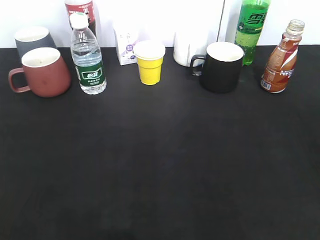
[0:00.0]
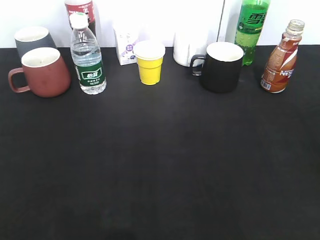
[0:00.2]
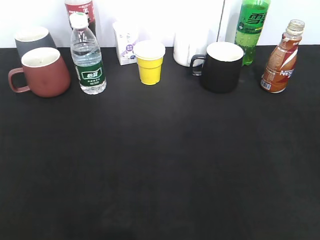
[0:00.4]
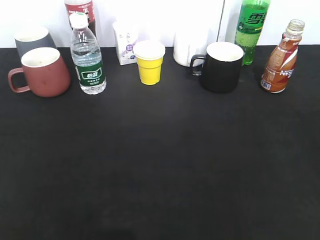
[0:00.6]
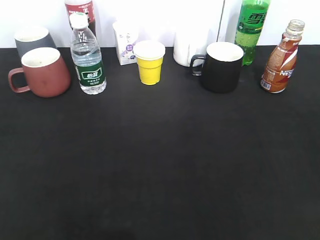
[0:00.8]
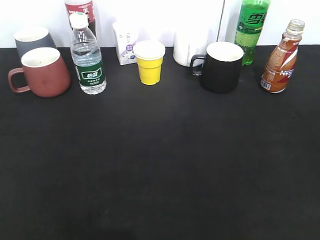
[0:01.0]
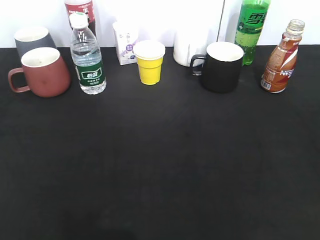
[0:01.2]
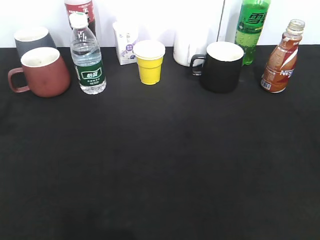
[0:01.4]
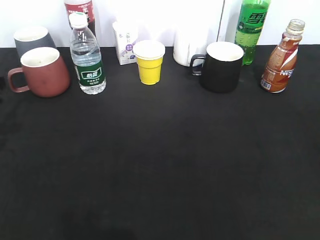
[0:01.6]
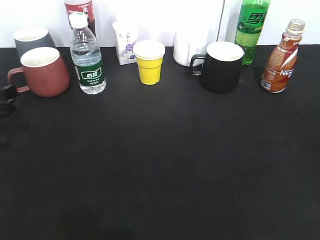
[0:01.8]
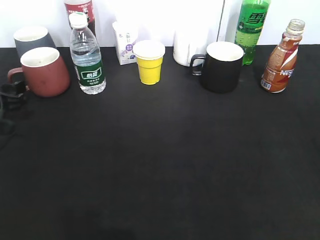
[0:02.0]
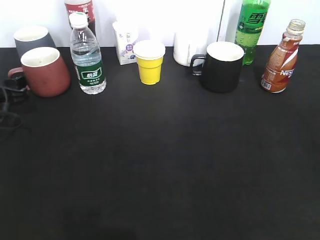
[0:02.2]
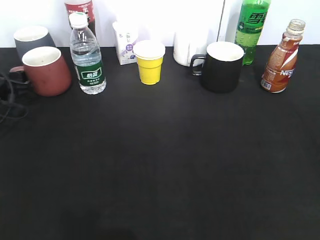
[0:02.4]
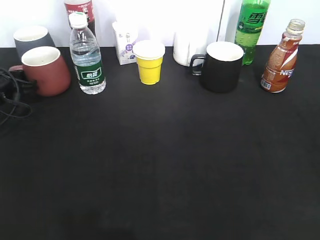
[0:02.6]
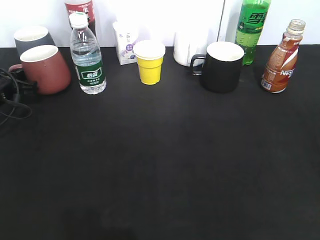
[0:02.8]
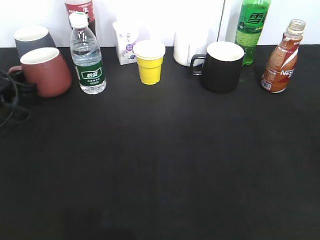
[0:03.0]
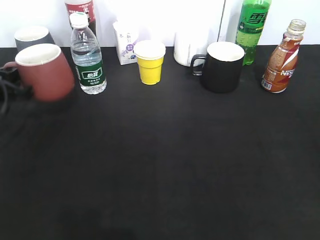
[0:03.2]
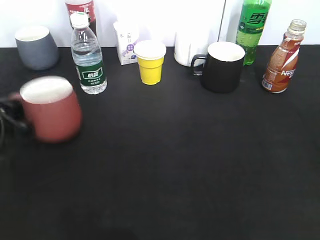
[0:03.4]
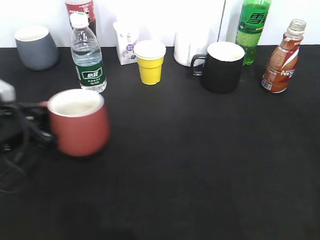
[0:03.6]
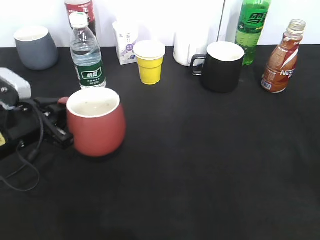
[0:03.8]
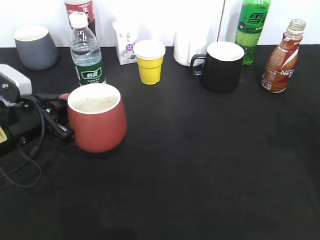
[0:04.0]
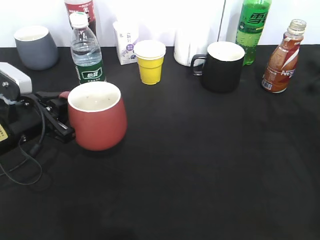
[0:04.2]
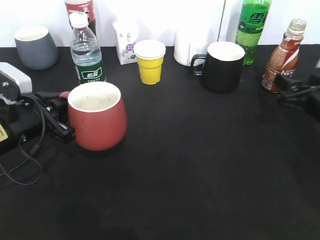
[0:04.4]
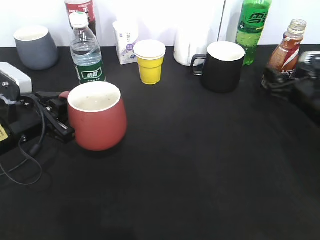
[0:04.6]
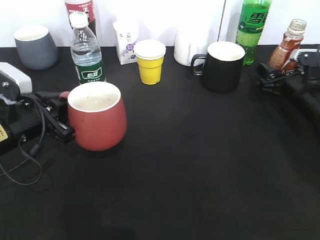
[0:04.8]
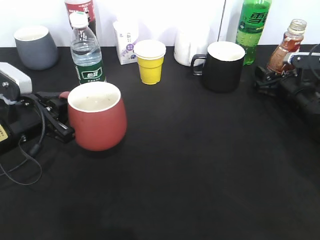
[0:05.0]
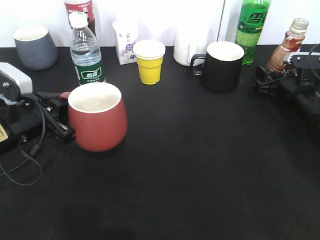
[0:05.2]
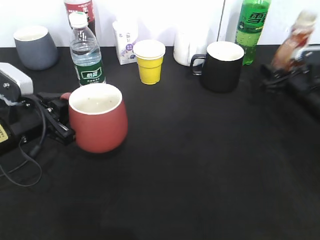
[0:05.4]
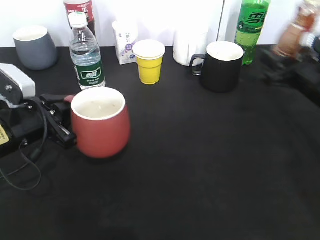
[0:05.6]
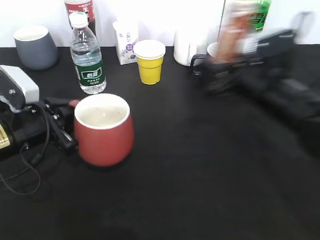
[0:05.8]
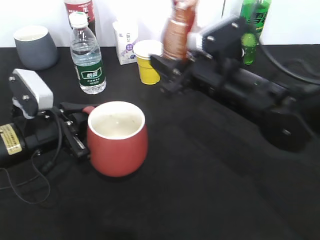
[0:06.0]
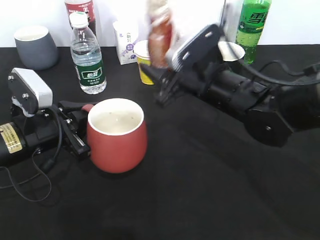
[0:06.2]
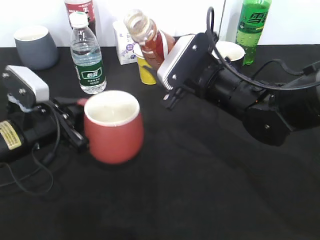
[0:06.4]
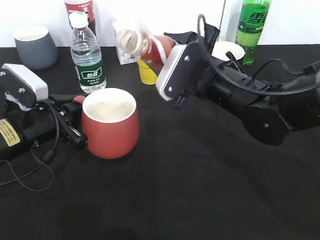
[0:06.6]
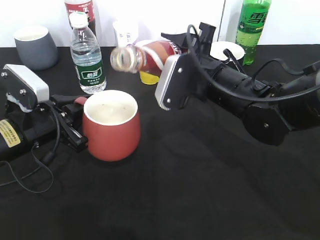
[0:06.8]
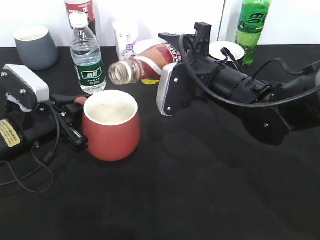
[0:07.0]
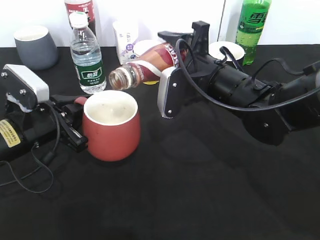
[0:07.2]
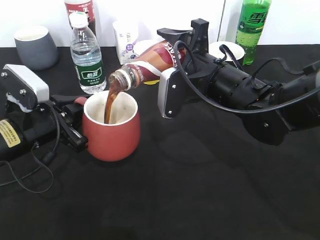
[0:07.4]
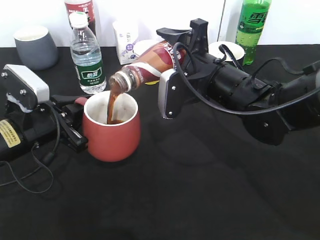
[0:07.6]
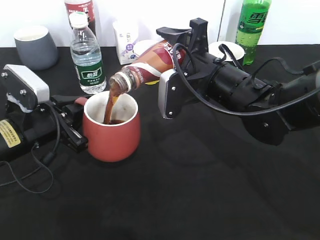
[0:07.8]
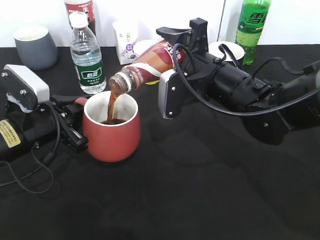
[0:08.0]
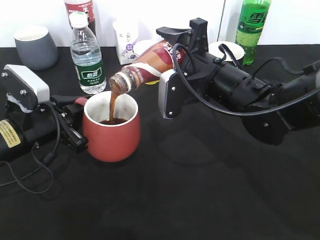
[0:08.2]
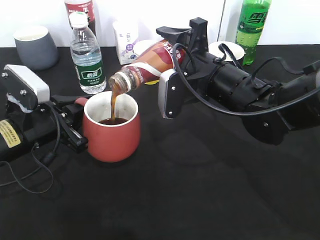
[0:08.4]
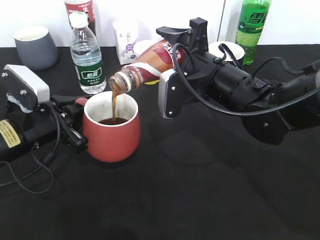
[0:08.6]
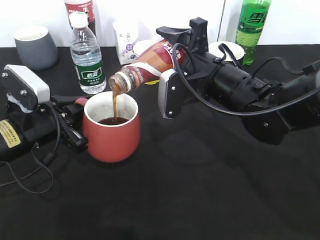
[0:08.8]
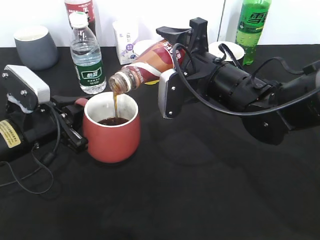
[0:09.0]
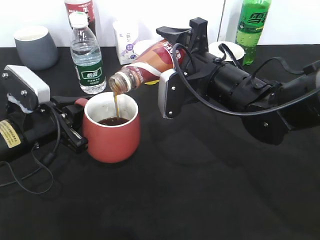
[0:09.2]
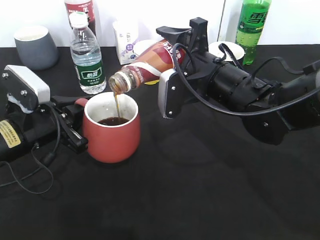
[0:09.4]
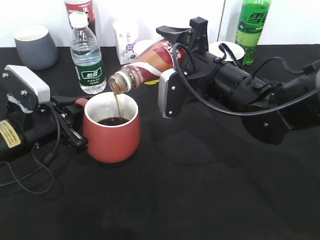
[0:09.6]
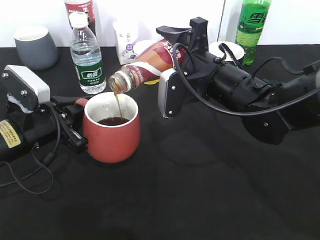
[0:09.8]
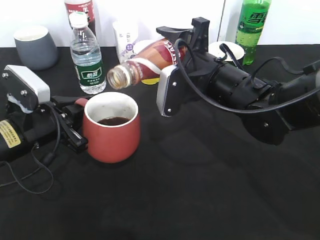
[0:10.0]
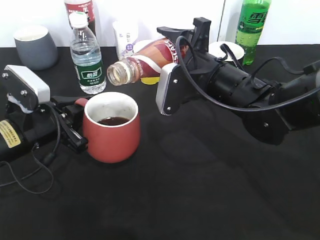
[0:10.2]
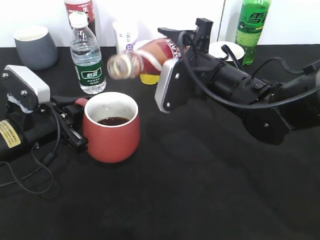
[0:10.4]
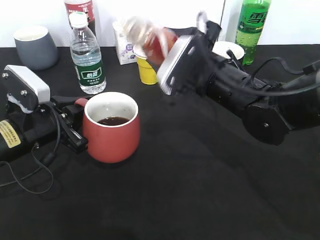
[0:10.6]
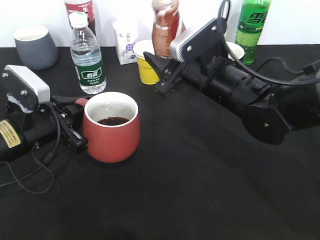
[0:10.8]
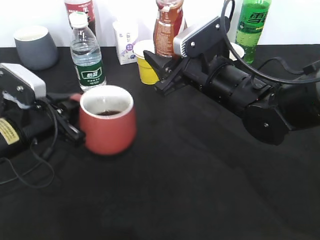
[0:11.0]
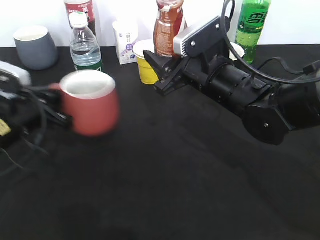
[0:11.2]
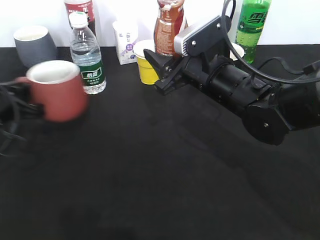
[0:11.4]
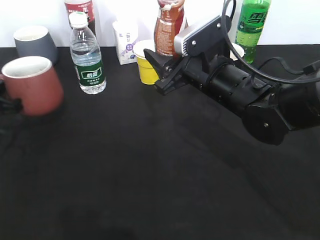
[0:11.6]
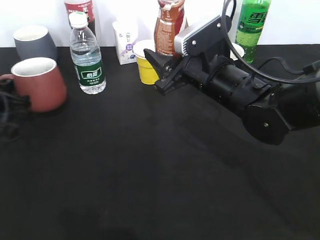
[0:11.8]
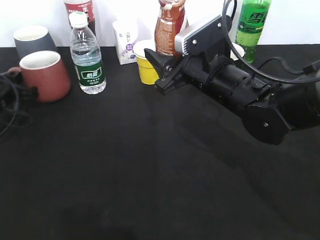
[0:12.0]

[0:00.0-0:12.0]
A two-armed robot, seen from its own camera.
Step, 0:02.8 to 0:03.8: Lift the red cup with left gripper.
Step, 0:04.0 to 0:05.2: Grasp the bottle with coffee with right gripper.
Step, 0:05.4 to 0:10.4: Pour the coffee from bottle to cup with right gripper.
0:00.0 to 0:01.6: The left gripper heads forward and downward, covering roughly 30 cm.
0:01.6 to 0:03.0: The left gripper moves forward and downward, some 10 cm, and closes its fingers.
0:03.0 to 0:04.4: The right gripper goes about 35 cm forward and downward, and opens its fingers. Meanwhile the left gripper is displaced backward and to the right by some 15 cm.
0:04.4 to 0:06.0: The right gripper is displaced to the left by roughly 20 cm, and closes up.
0:07.6 to 0:09.0: Both grippers stay put.
0:09.0 to 0:10.4: The grippers make only small movements.
0:10.4 to 0:12.0: The left gripper is displaced to the left and forward by about 15 cm.

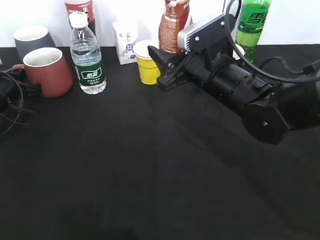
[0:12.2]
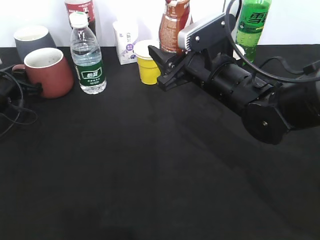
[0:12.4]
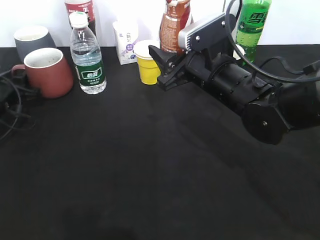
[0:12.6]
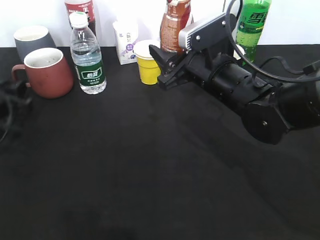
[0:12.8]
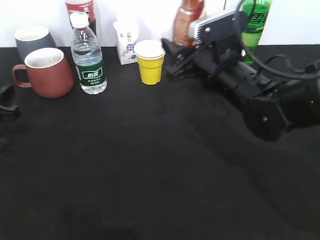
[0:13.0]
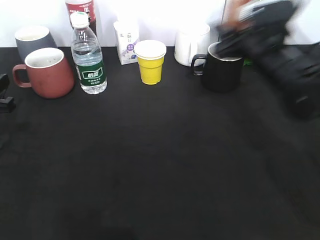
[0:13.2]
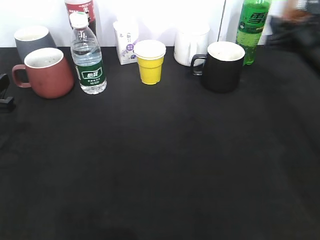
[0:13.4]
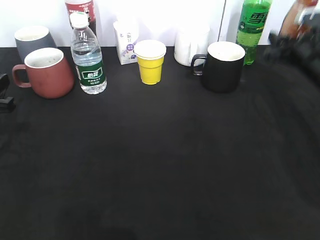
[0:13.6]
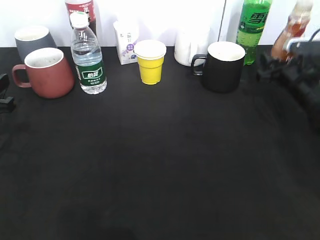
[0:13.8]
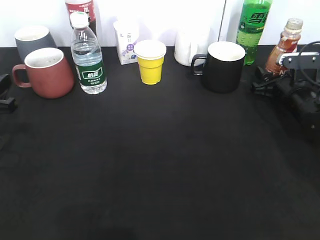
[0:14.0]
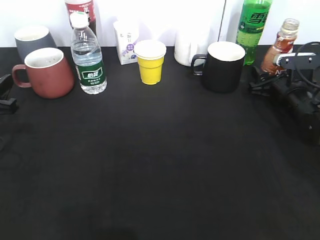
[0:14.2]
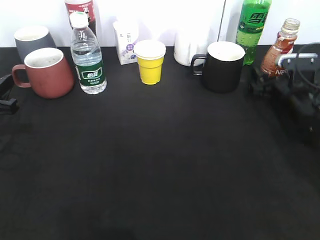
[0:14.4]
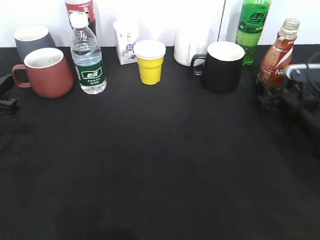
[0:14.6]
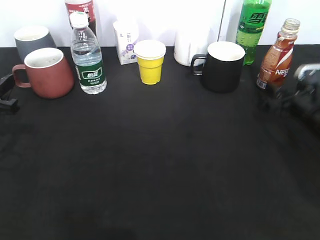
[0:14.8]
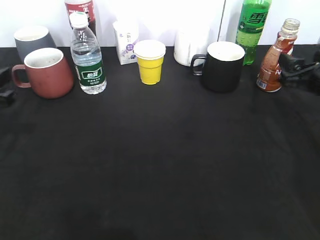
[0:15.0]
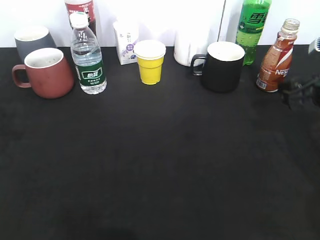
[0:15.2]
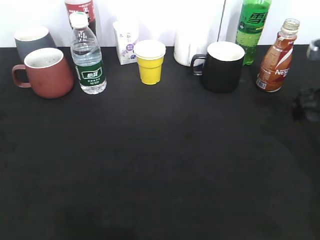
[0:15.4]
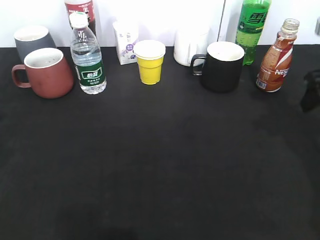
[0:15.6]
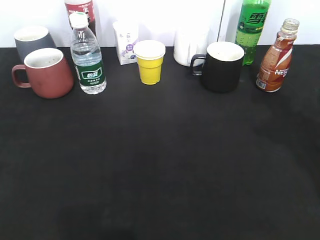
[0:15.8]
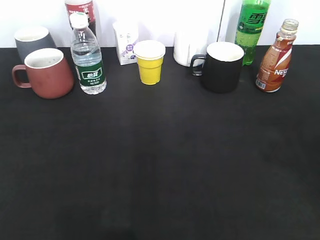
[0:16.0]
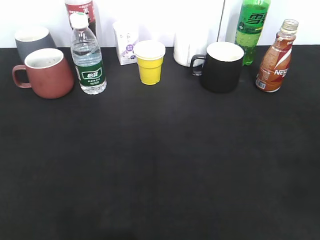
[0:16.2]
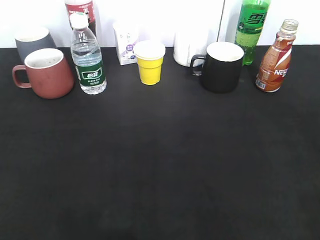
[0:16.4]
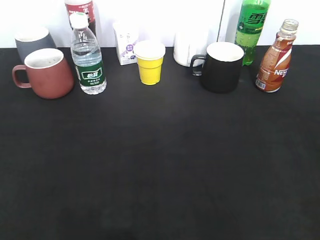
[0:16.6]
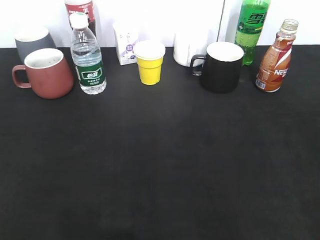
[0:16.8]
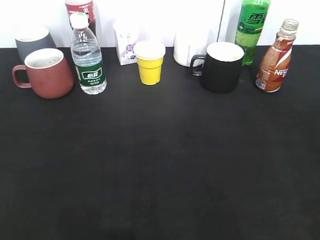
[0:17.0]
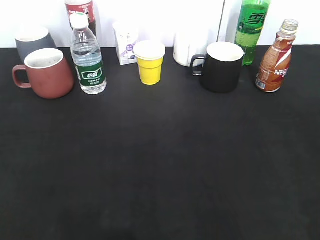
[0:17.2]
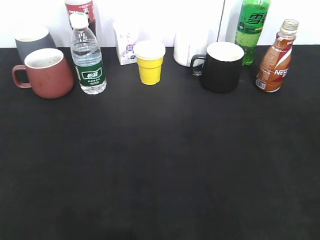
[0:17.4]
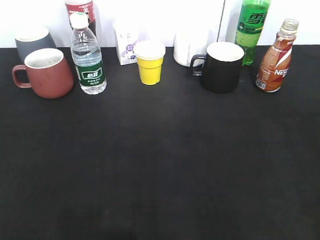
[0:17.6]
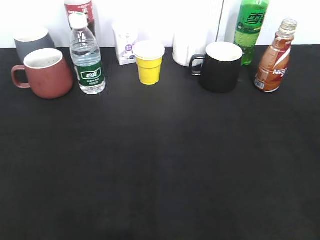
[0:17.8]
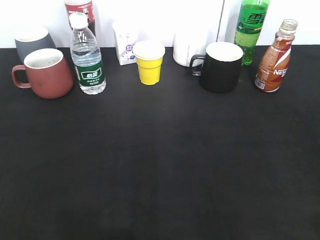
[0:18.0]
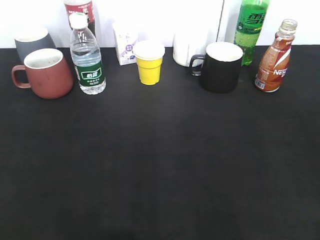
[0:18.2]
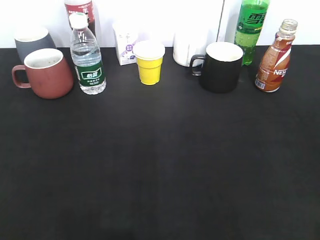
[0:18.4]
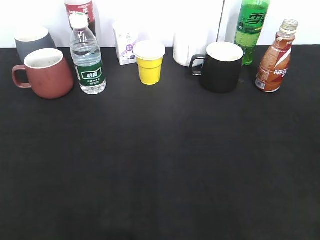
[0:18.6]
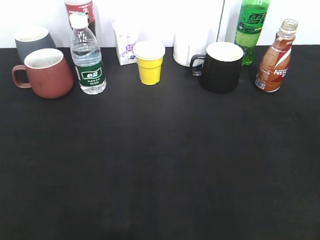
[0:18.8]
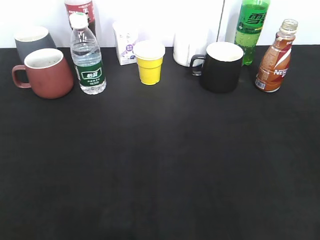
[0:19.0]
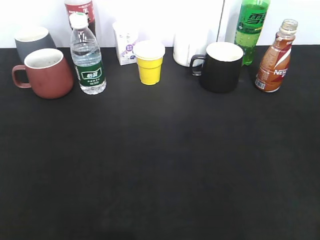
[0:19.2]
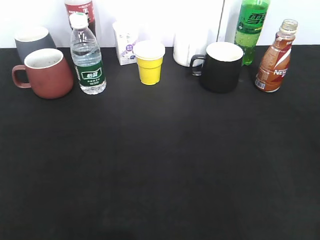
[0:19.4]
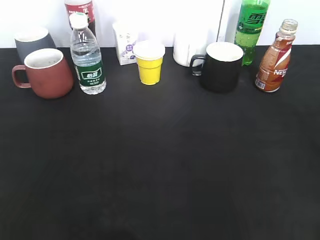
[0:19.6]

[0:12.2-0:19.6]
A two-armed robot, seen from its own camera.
Step, 0:12.8 to 0:14.4: Place the coffee bottle on the table with right gripper.
0:12.2 to 0:13.6: The left gripper is displaced backward and upward by some 10 cm, and opens its fingers, while the right gripper shifts about 20 cm to the right.
0:13.6 to 0:15.2: The right gripper shifts roughly 10 cm backward, reaches roughly 10 cm downward, then returns, and opens its fingers.
0:15.2 to 0:16.6: Both grippers move backward, about 25 cm.
0:16.6 to 0:18.2: The right gripper closes its fingers.
